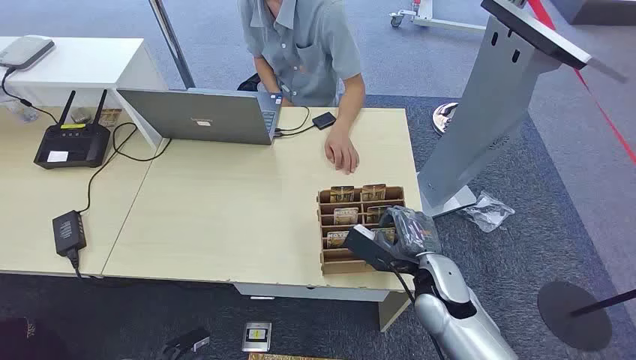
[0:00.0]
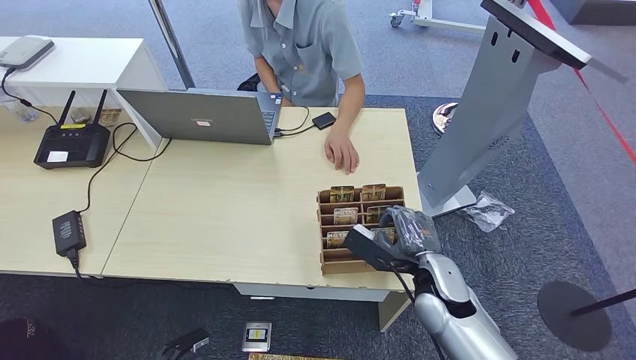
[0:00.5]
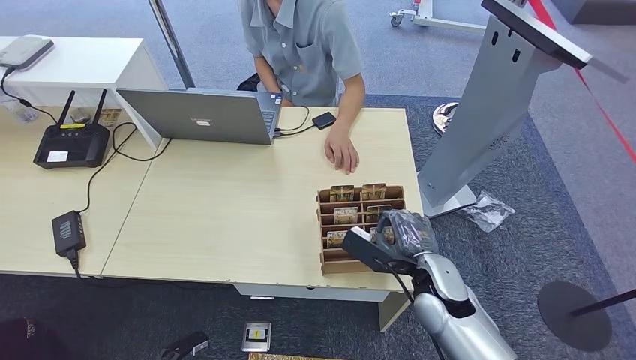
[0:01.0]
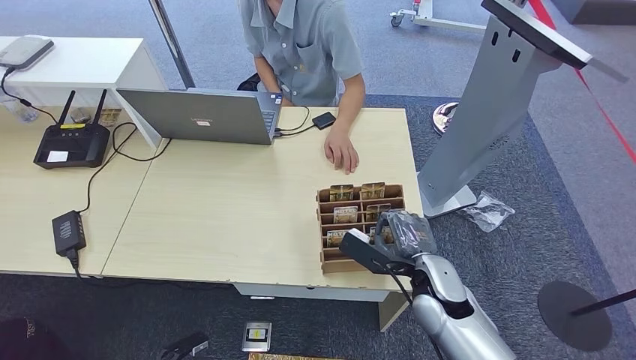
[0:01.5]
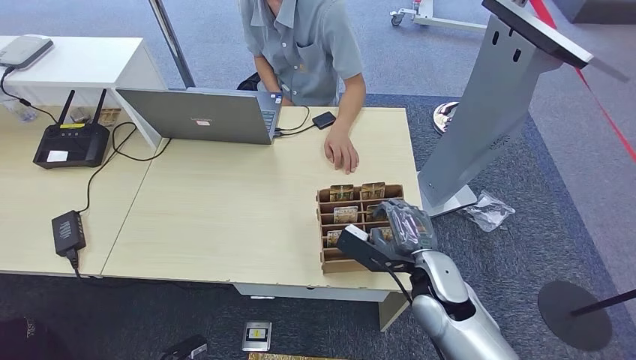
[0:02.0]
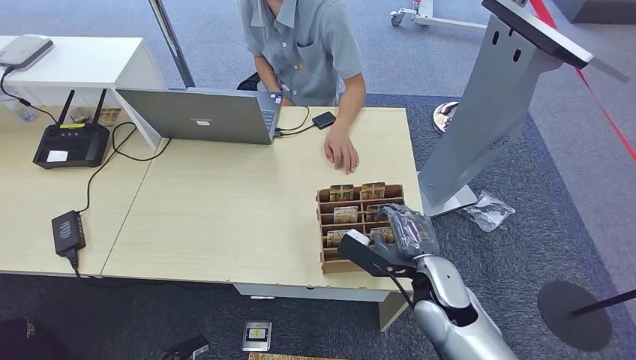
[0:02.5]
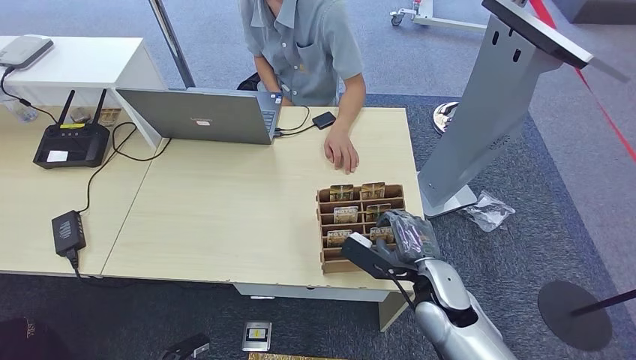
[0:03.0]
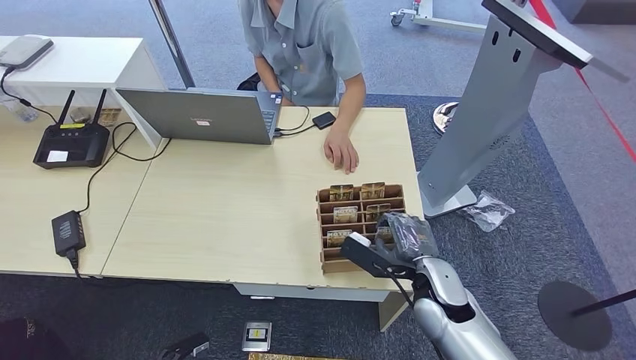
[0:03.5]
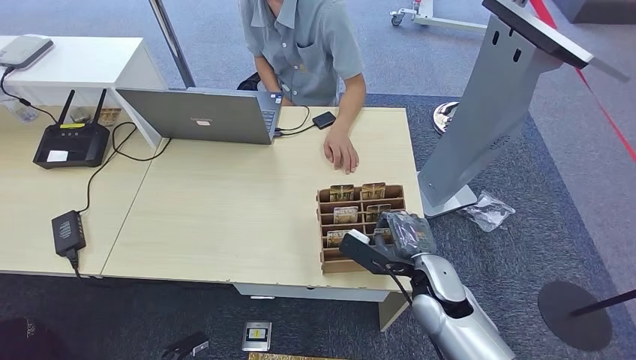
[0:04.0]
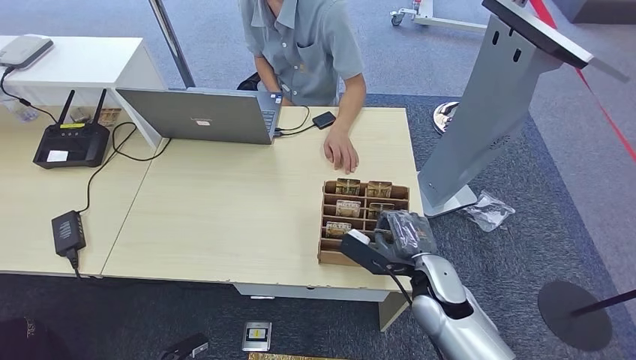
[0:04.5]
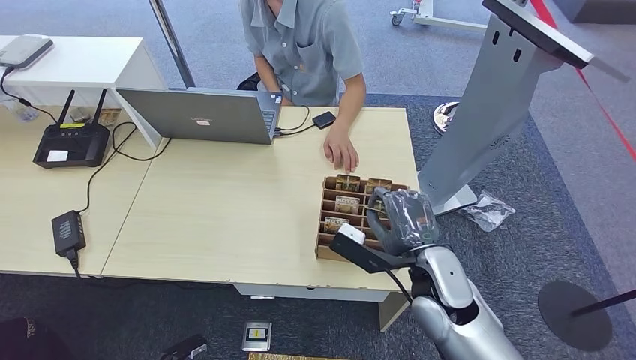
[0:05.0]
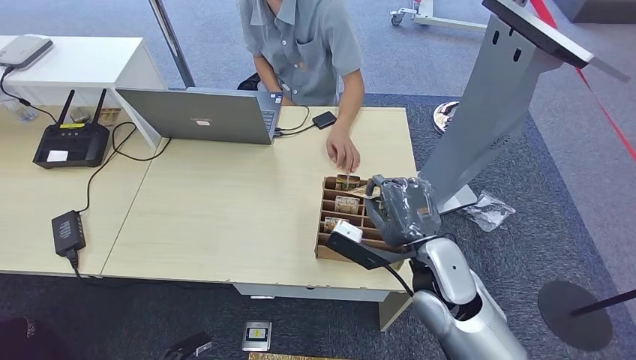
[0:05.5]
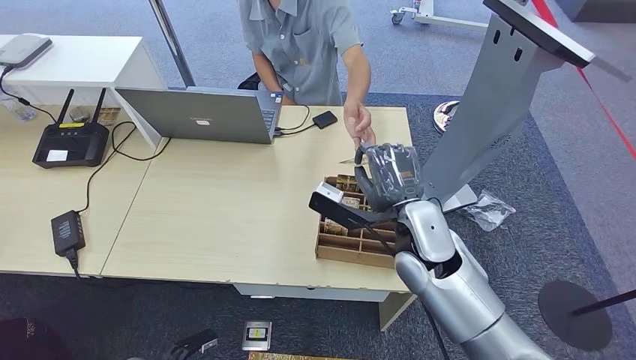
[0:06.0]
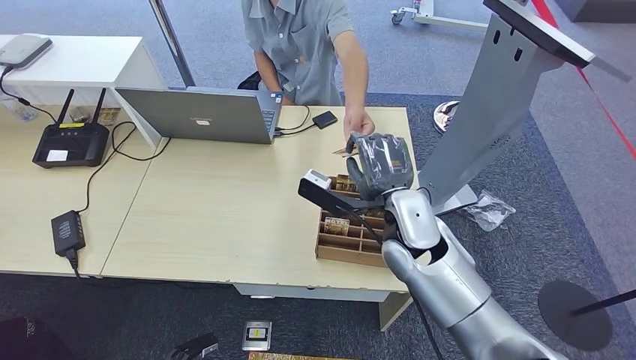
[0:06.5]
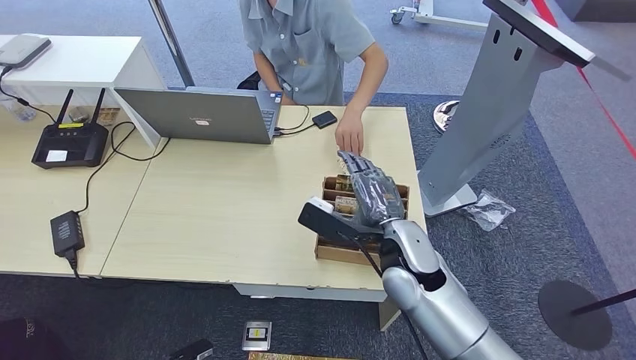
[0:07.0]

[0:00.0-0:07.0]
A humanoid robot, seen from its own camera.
Step, 0:00.0 to 0:05.0: Pick up the room card from the card holder.
Step, 0:06.0 to 0:07.0: Hand the room card to the target.
0:02.0 to 0:03.5: There are only small adjustments of the hands.
0:03.5 to 0:05.0: The right hand is displaced upward by some 10 cm.
0:05.0 to 0:07.0: The right hand moves roughly 10 cm forward and comes back.
